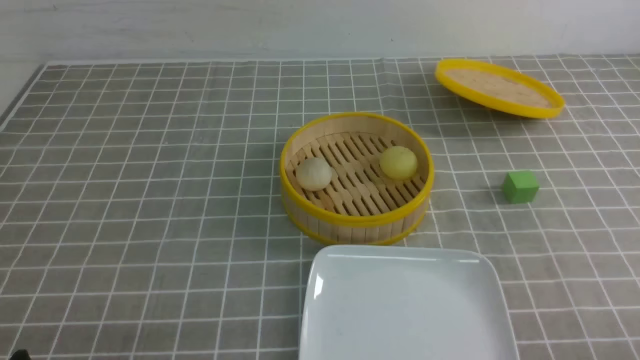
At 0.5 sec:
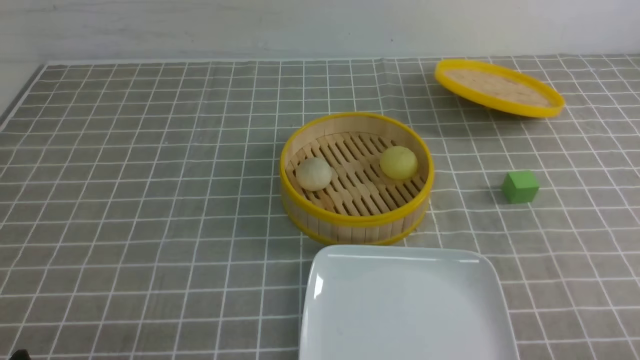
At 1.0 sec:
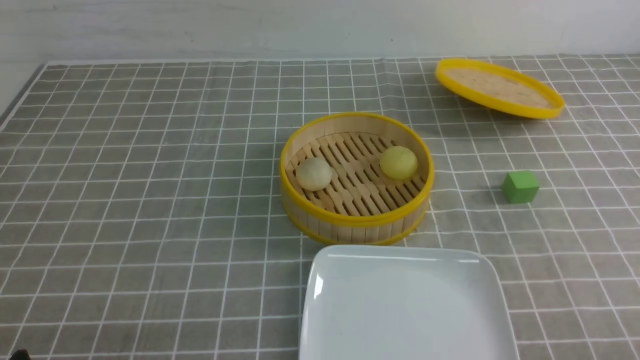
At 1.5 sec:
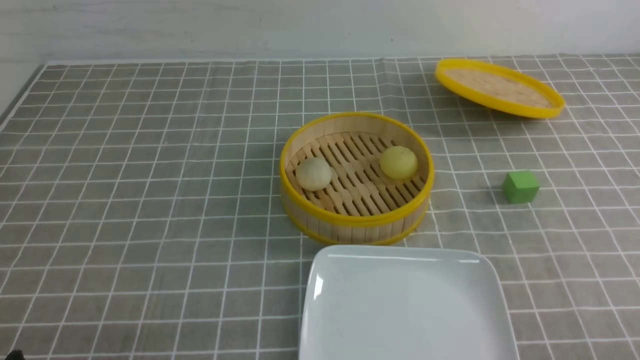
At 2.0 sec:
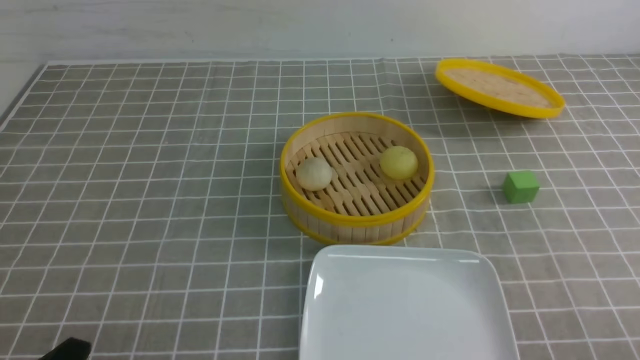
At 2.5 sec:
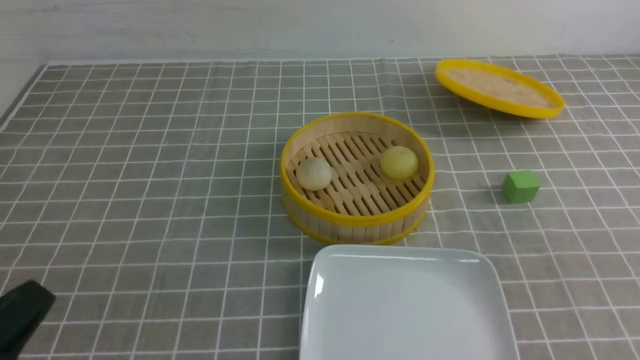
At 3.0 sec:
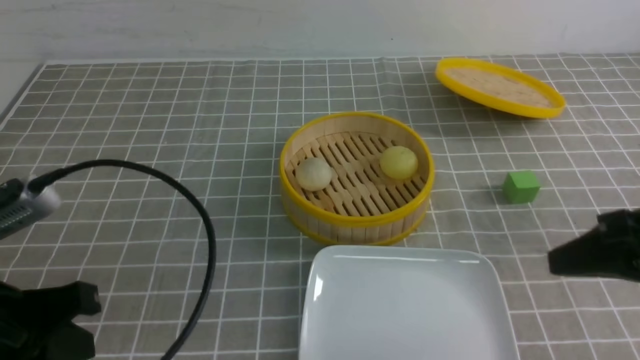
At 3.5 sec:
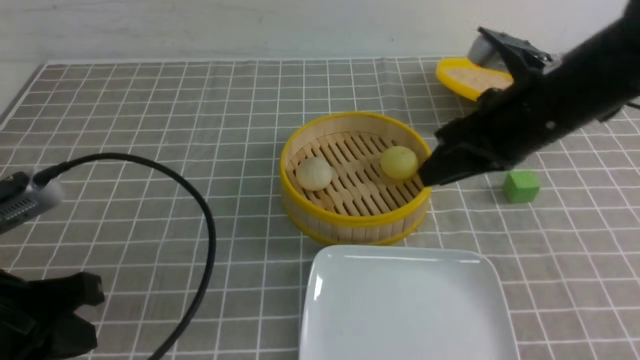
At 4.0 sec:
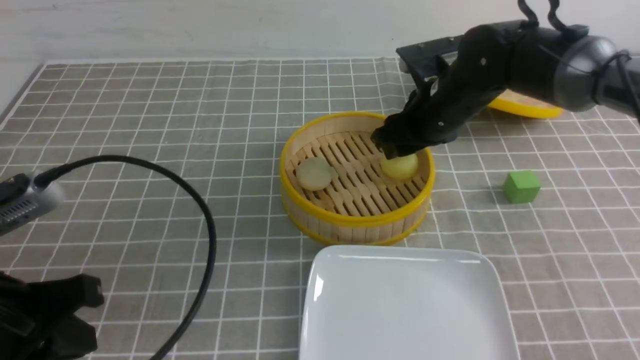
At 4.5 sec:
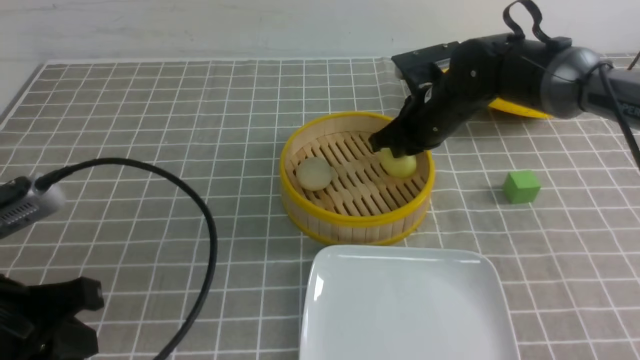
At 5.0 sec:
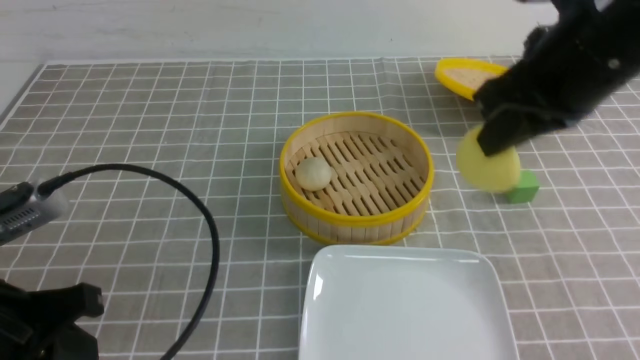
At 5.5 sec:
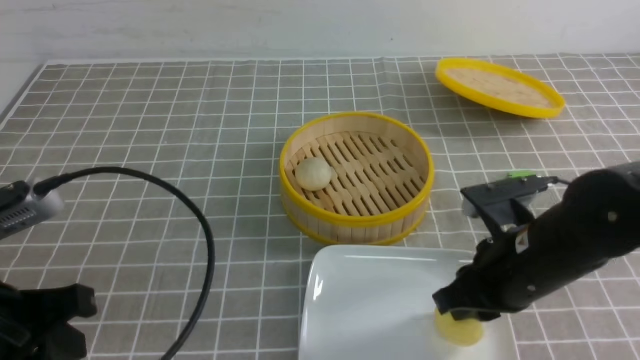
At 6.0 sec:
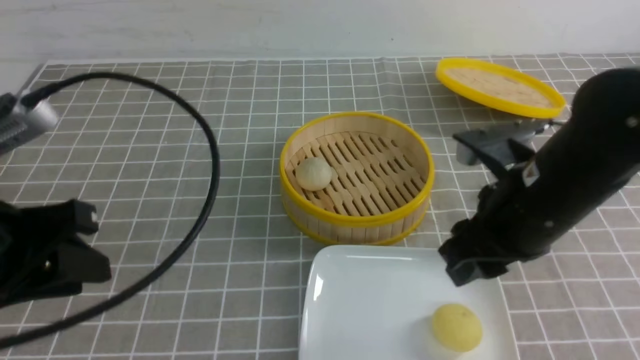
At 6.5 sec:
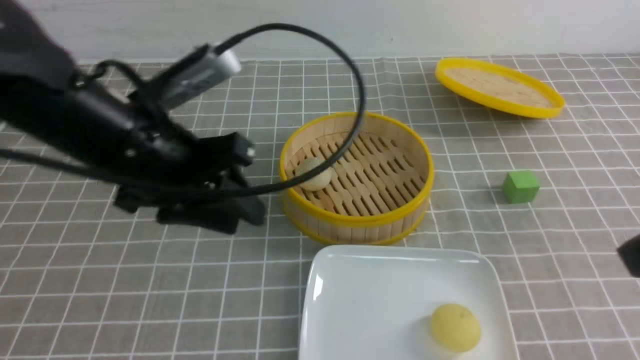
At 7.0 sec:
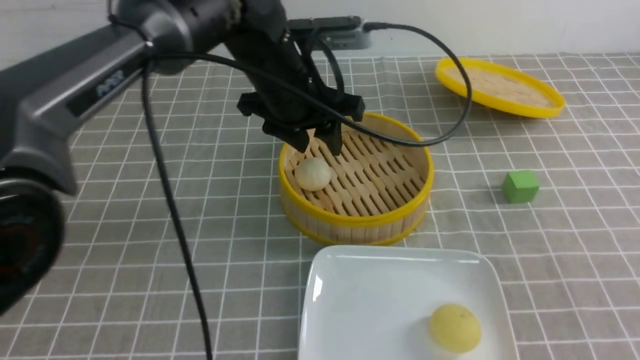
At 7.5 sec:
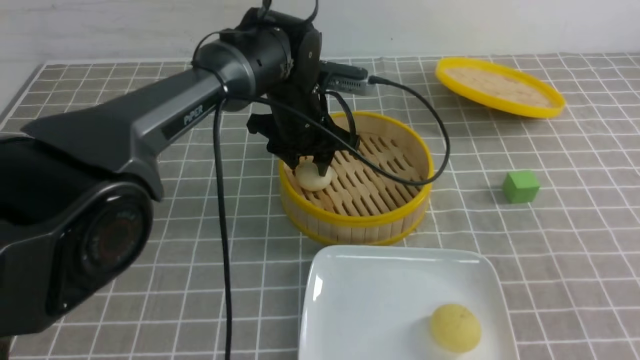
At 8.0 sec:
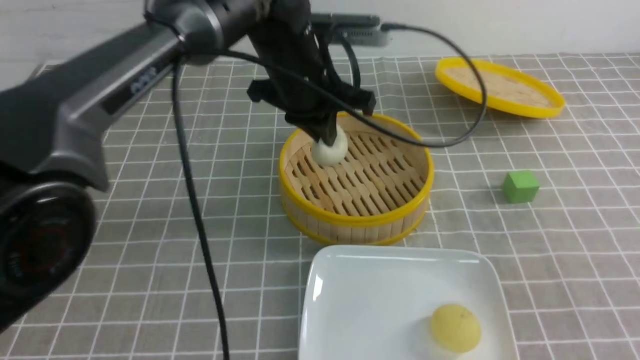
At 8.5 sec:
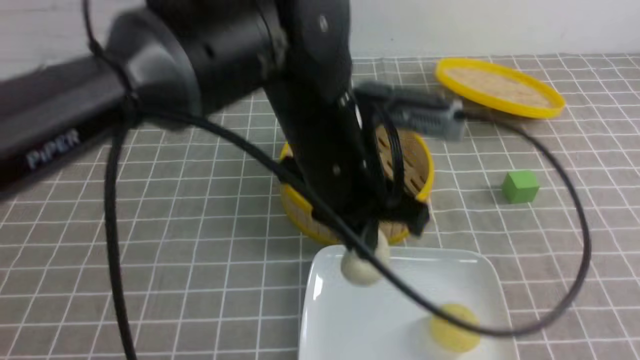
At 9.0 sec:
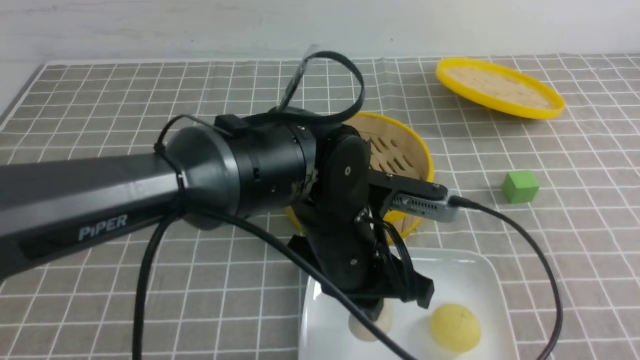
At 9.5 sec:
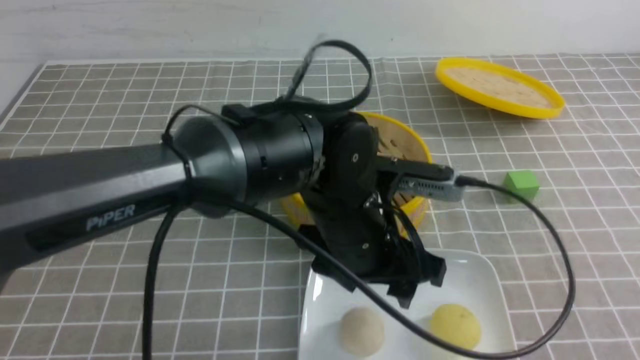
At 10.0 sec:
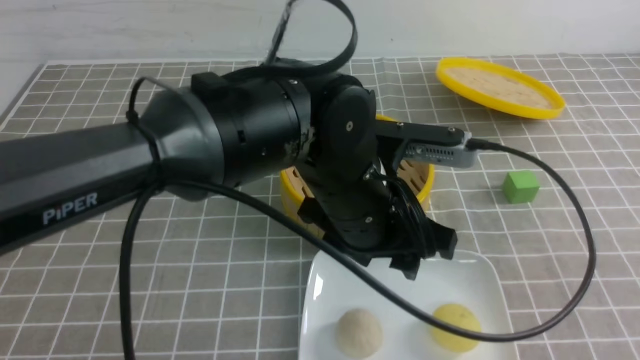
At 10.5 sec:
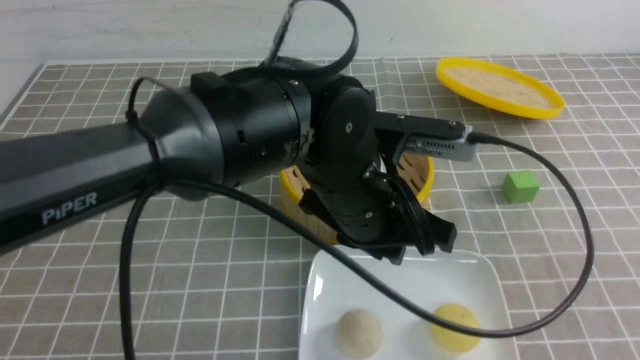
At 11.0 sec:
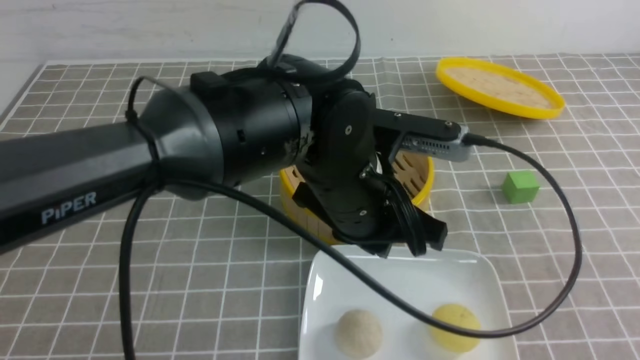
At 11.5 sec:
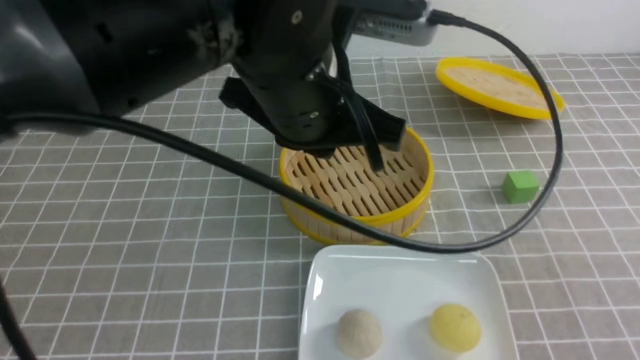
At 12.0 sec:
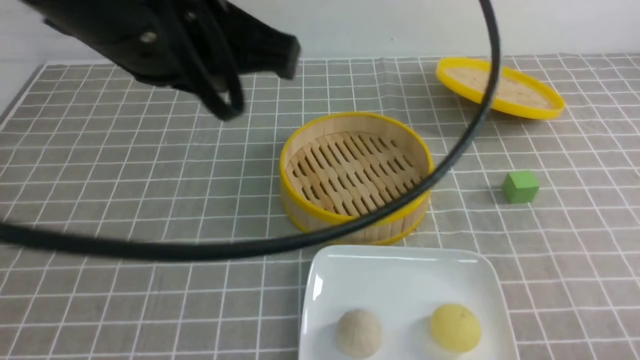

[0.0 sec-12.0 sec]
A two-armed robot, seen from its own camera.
Step, 0.0 sec to 4.5 sec: use the right arm to grab the steamed stuffed bun that is closest to it.
Step, 5.0 sec to 5.5 sec: use the right arm to put the steamed stuffed bun into the plate.
Step, 6.0 sec to 7.5 sec: use the left arm to grab the steamed stuffed bun that is closest to it.
Step, 8.0 sec to 9.0 sec: use the left arm to put the steamed stuffed bun into the plate.
2.0 sec to 4.0 sec: The left gripper shifts approximately 15 cm upward and forward, and closes; the right gripper goes some 40 cm forward and to the left, and closes, then opens again.
4.0 sec to 6.0 sec: The right gripper moves backward, roughly 20 cm, and closes, then reopens. The left gripper ends up some 5 cm from where it was, and opens its fingers.
6.0 sec to 8.0 sec: The right gripper goes about 20 cm backward and to the right, and closes up, while the left gripper heads to the right and forward, covering some 30 cm, and closes up.
8.0 sec to 10.0 sec: The left gripper shifts roughly 15 cm backward, and opens up. Meanwhile the right gripper shifts some 5 cm to the right.
10.0 sec to 12.0 sec: The right gripper heads downward, covering about 15 cm, while the left gripper is displaced upward and to the left by roughly 25 cm, and closes.

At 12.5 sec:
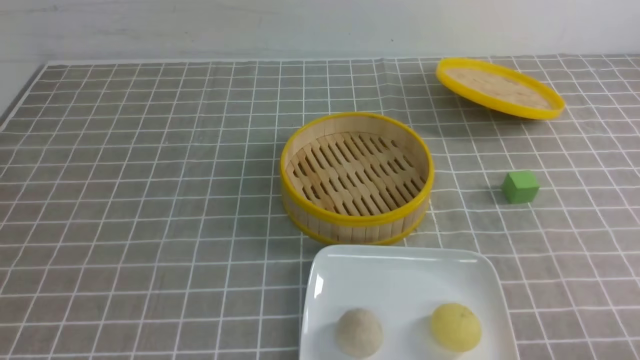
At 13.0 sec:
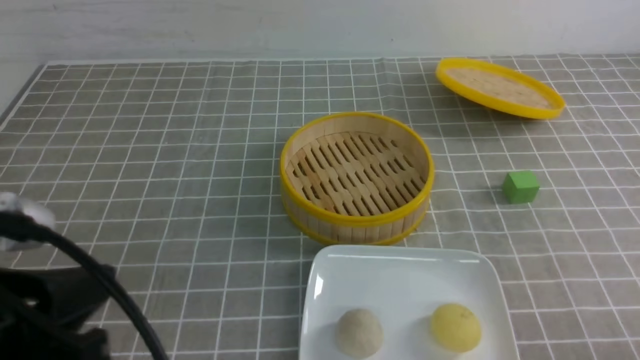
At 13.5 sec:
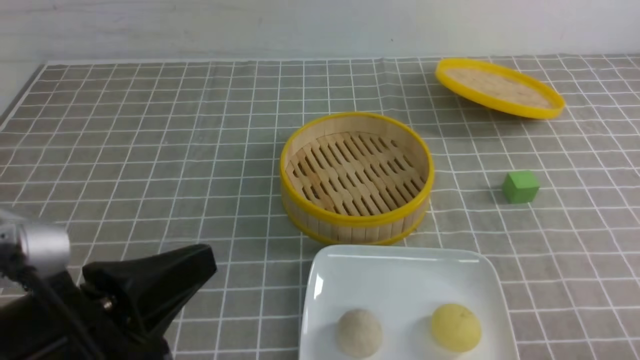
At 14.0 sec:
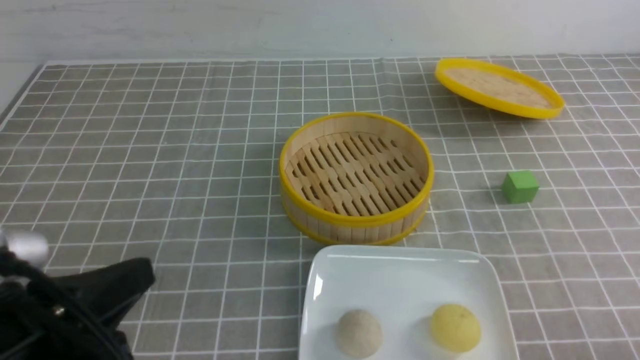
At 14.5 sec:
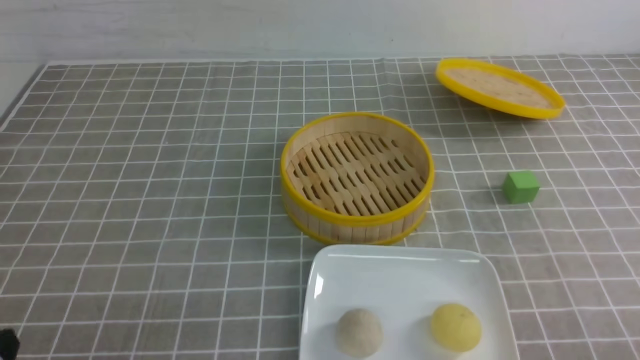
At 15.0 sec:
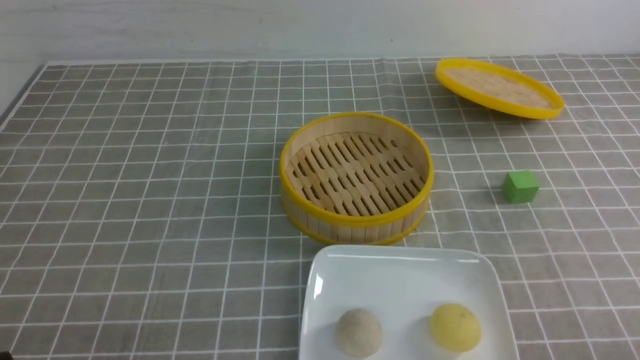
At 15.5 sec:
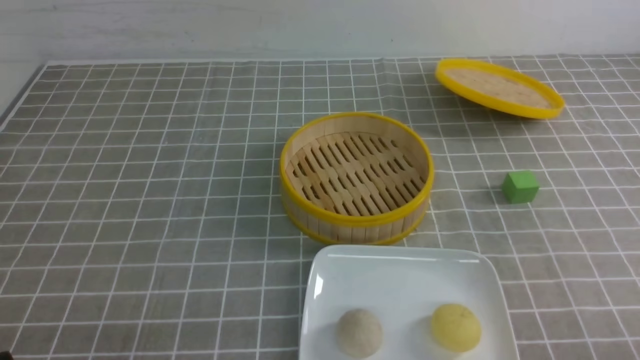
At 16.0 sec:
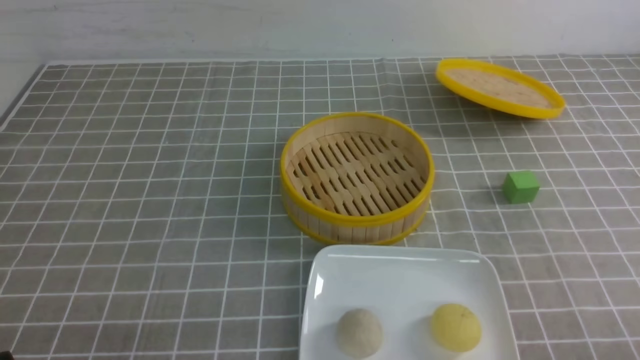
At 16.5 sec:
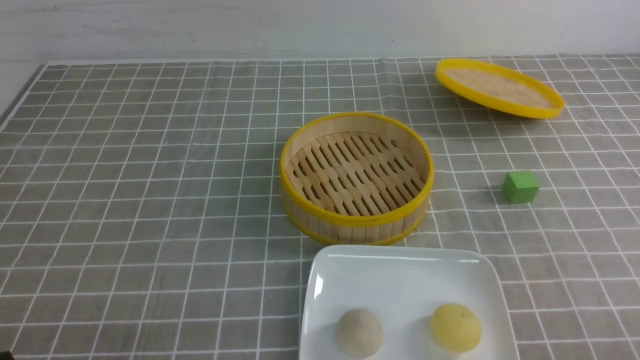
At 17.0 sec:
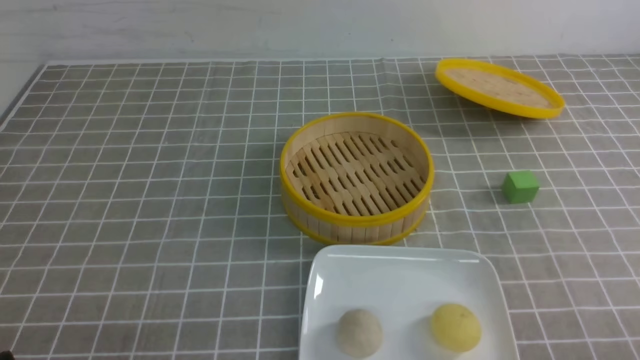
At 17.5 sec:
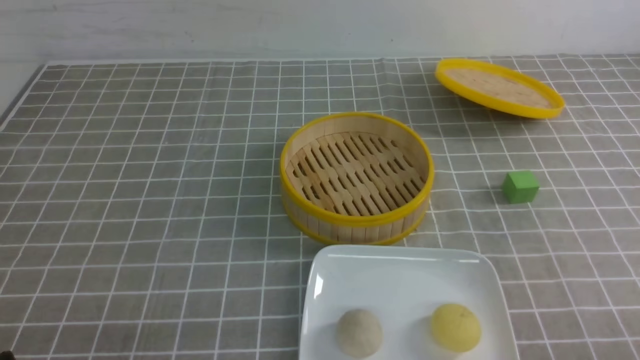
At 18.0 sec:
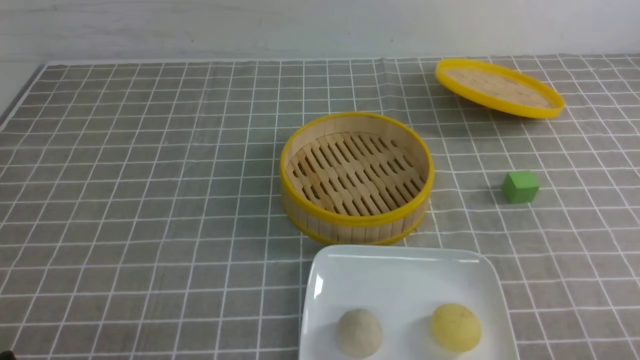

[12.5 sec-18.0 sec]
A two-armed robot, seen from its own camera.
12.5 sec to 14.5 sec: The left gripper shifts some 30 cm downward.
16.0 sec to 18.0 sec: The two grippers keep their place.
